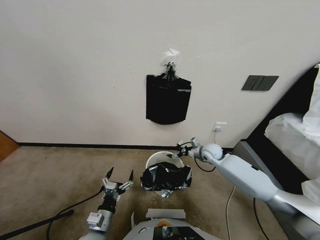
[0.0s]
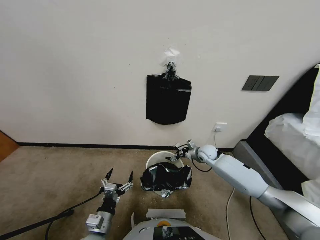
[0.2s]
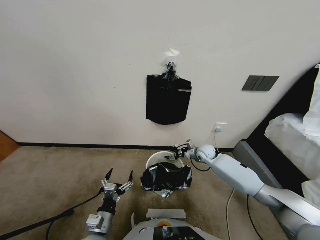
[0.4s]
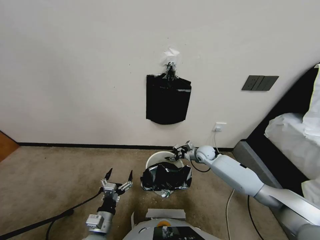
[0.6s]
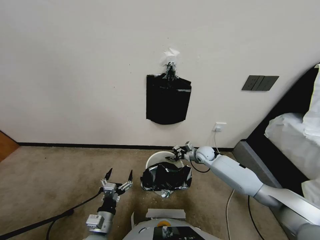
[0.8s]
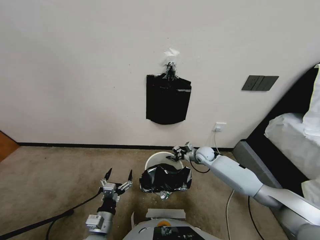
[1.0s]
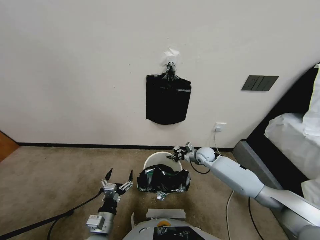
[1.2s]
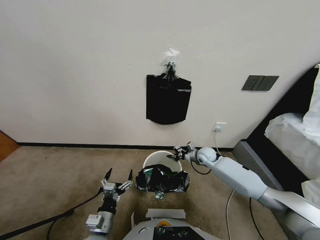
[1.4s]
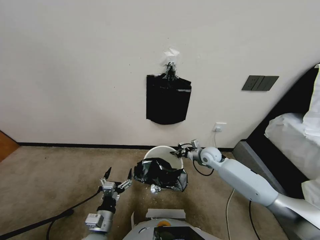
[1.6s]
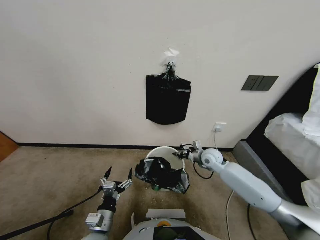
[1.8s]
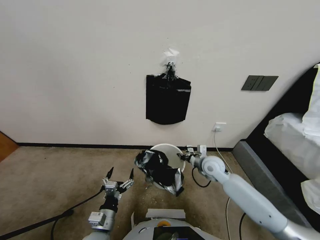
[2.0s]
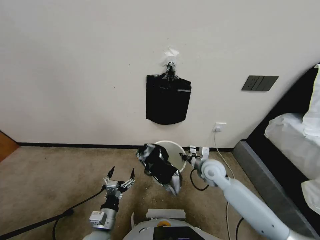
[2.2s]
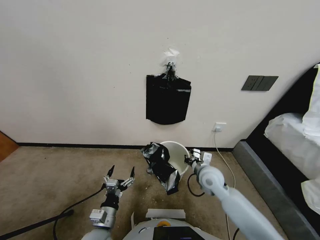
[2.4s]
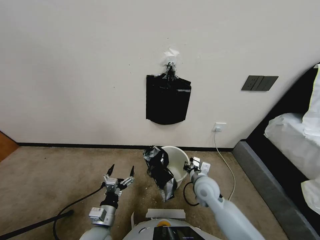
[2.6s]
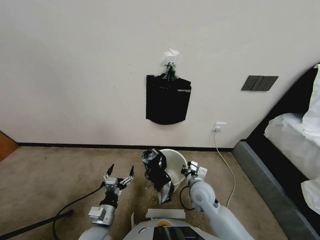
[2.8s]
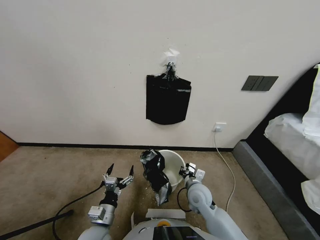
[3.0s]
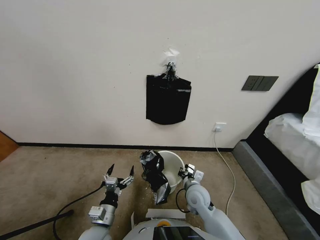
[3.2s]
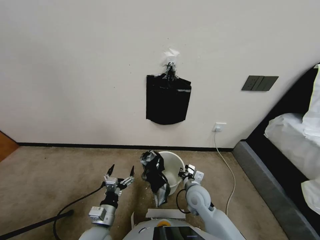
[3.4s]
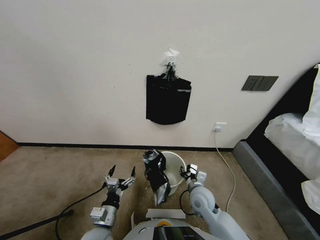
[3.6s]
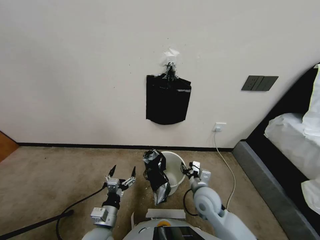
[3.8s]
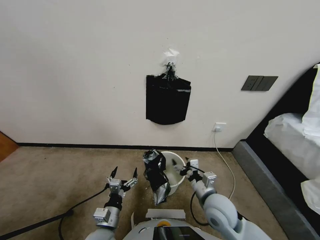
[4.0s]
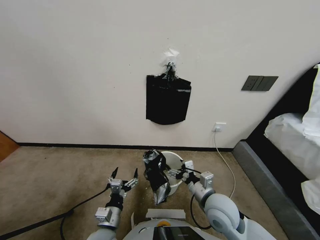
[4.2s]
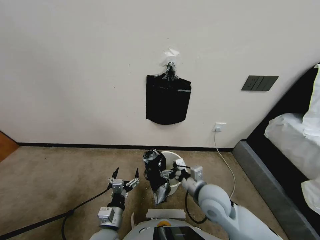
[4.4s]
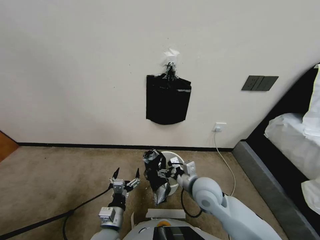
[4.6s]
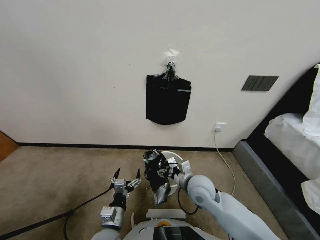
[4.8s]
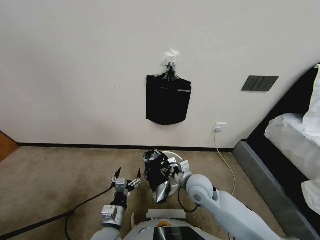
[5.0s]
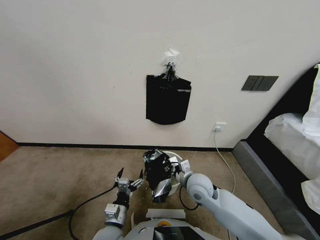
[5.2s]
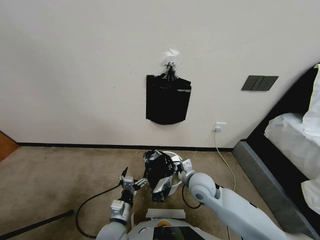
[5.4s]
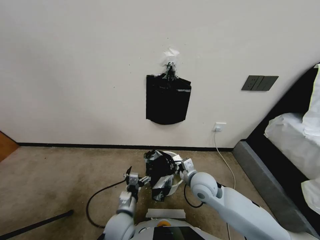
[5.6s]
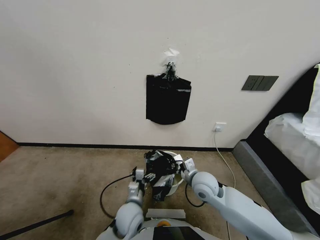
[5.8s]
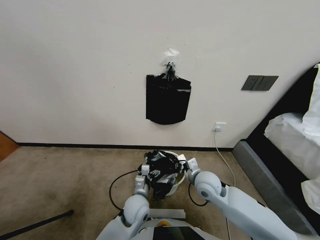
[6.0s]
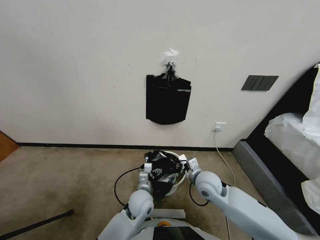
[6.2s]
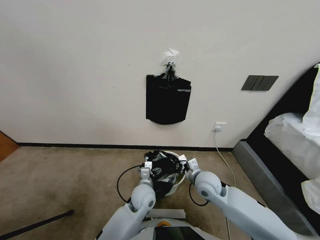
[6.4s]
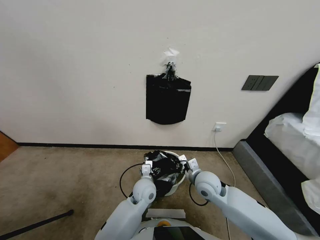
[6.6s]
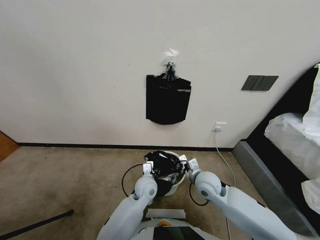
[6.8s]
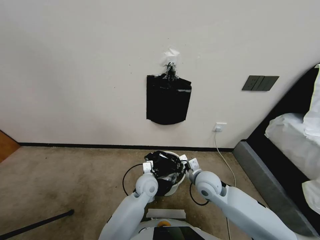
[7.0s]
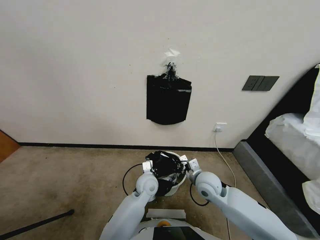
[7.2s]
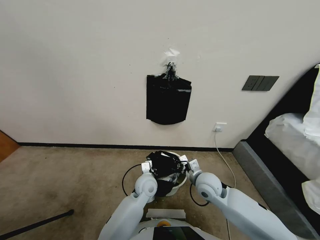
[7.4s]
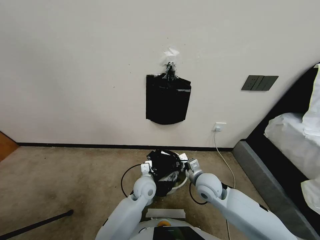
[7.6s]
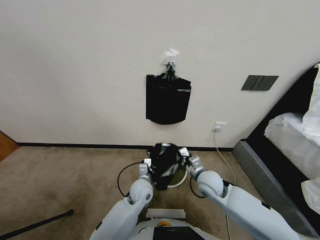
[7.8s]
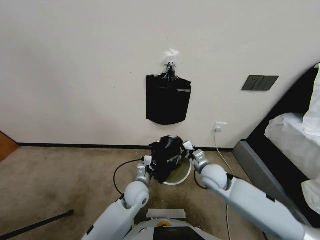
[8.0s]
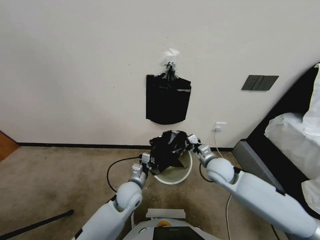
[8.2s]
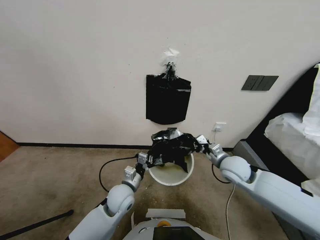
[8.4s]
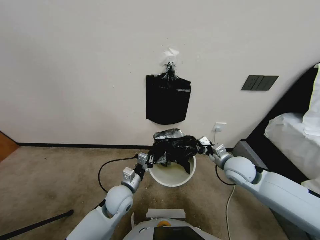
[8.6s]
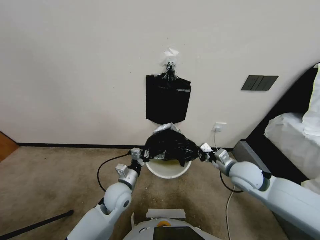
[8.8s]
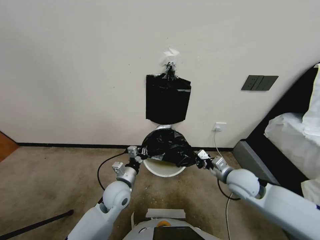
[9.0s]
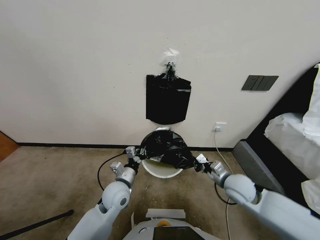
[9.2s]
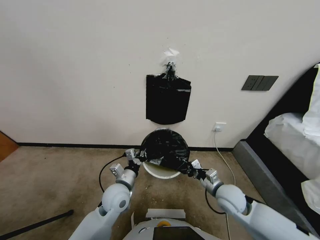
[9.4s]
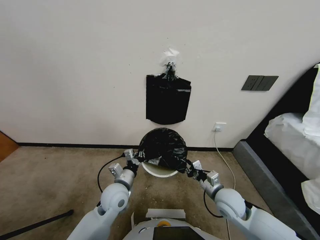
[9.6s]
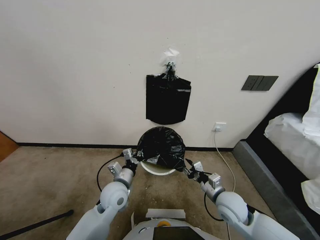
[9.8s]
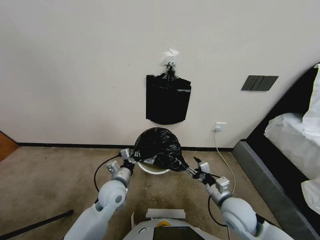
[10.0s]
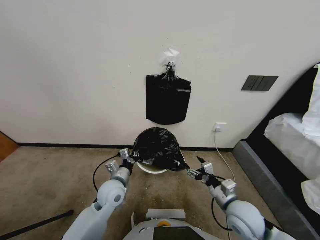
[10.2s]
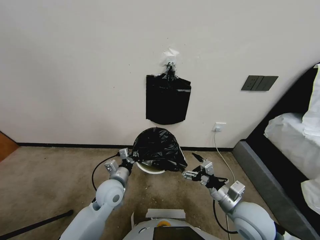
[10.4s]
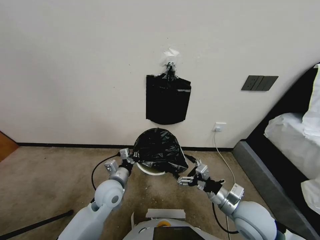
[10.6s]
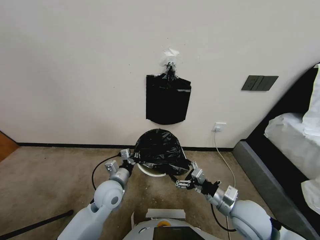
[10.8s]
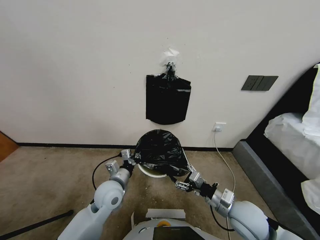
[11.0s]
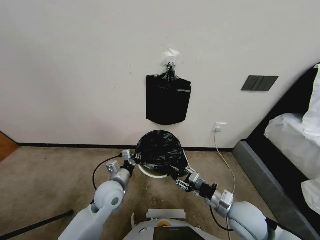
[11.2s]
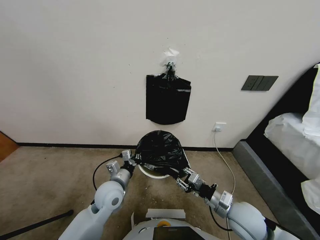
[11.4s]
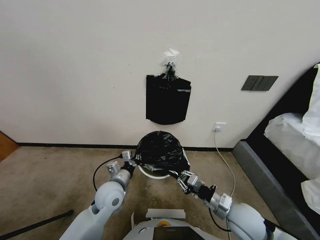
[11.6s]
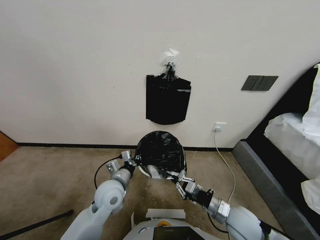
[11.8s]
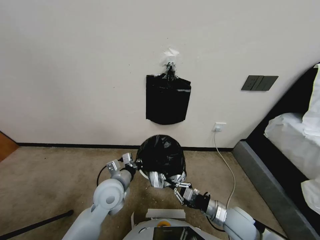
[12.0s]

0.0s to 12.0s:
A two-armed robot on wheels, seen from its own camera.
Task of the whole recording: Place a trash bag onto the trash bin.
0.0s to 1.6s: The right gripper closes.
1.6s to 3.0s: The right gripper travels backward and to the left by some 20 cm.
3.0s to 4.4s: The right gripper heads upward, covering some 10 cm, and opens.
4.4s to 6.0s: The right gripper changes place by roughly 5 cm, and closes. The left gripper heads forward and to the right, covering some 15 cm.
6.0s to 7.6s: The left gripper goes about 5 cm forward, and closes.
7.6s to 9.0s: The right gripper moves to the right, approximately 10 cm. The left gripper heads to the left, covering approximately 10 cm.
9.0s to 10.4s: The right gripper moves backward, roughly 10 cm, and opens up.
10.4s to 12.0s: The right gripper travels downward by about 10 cm, and closes up.

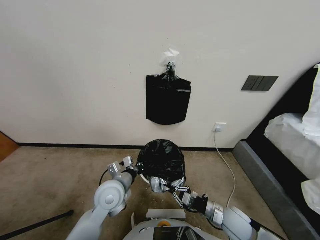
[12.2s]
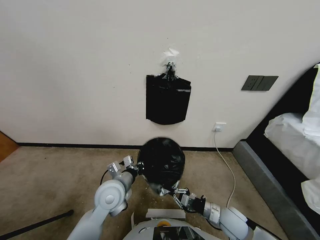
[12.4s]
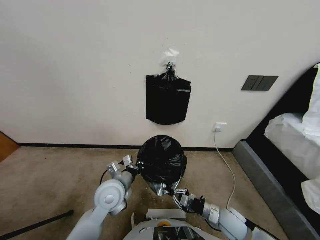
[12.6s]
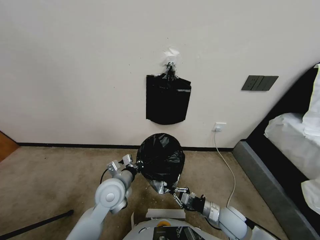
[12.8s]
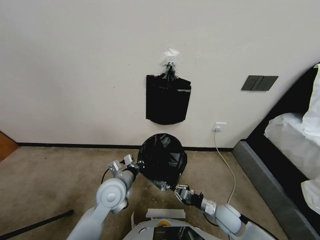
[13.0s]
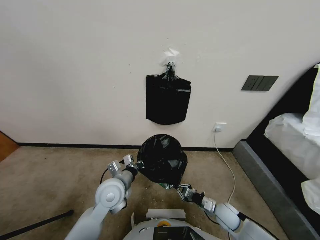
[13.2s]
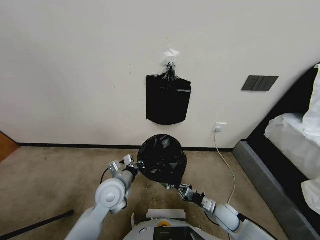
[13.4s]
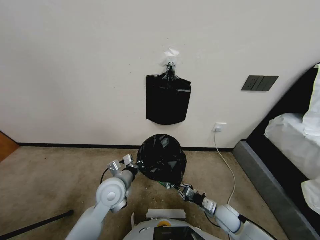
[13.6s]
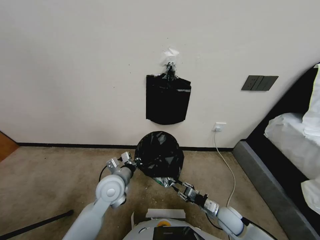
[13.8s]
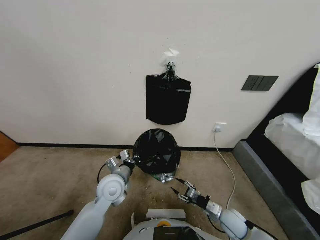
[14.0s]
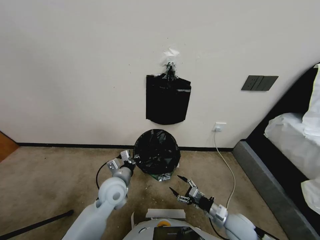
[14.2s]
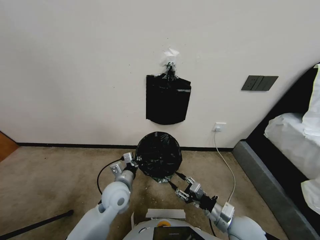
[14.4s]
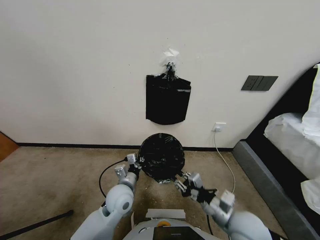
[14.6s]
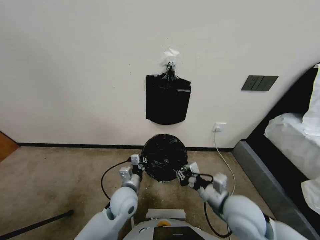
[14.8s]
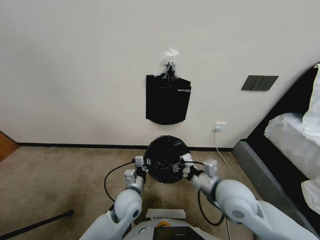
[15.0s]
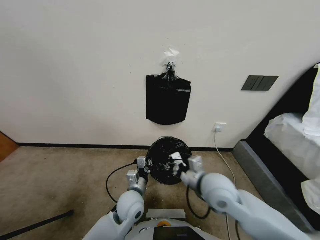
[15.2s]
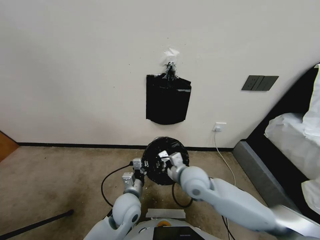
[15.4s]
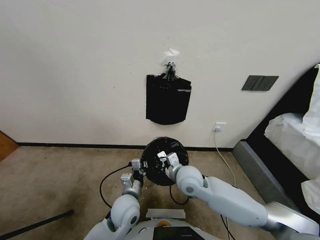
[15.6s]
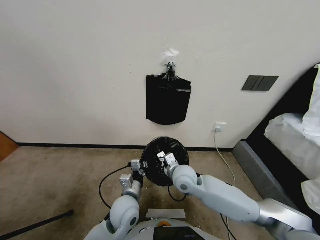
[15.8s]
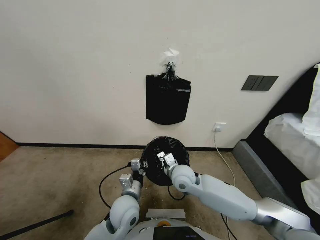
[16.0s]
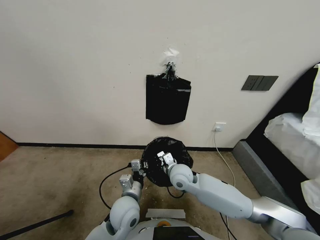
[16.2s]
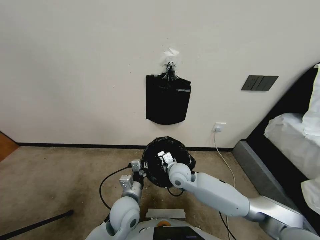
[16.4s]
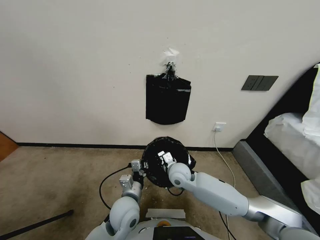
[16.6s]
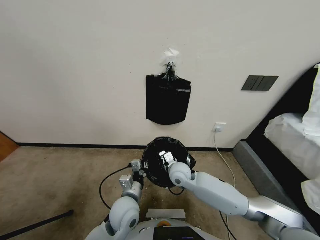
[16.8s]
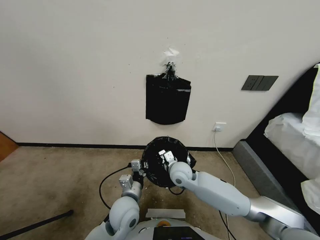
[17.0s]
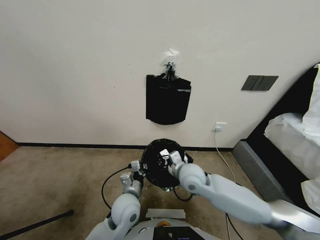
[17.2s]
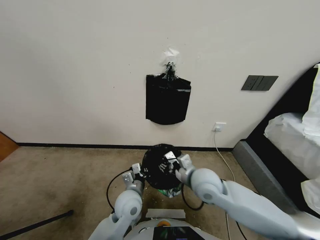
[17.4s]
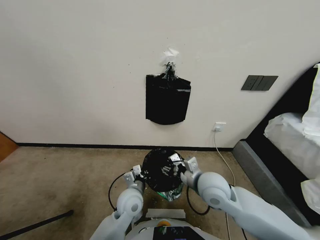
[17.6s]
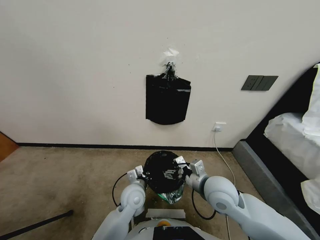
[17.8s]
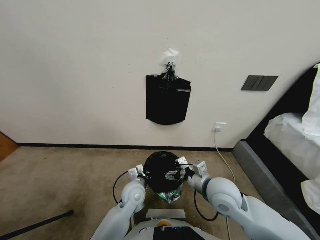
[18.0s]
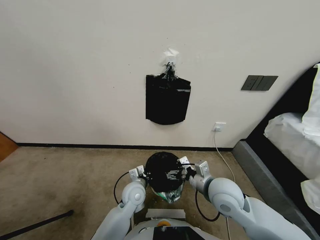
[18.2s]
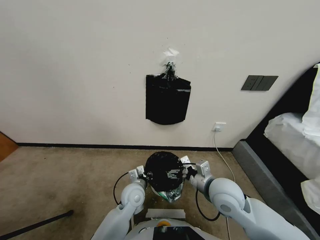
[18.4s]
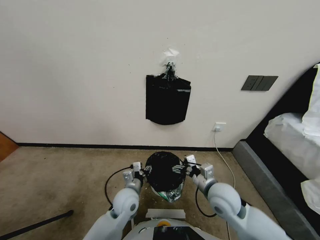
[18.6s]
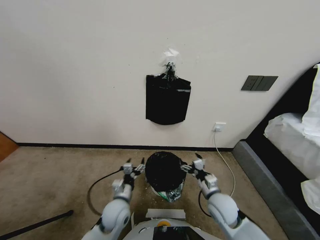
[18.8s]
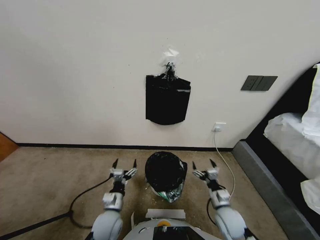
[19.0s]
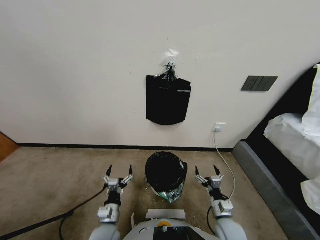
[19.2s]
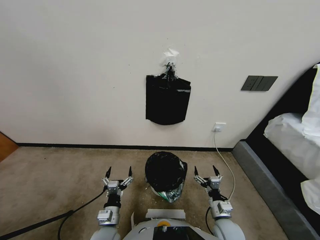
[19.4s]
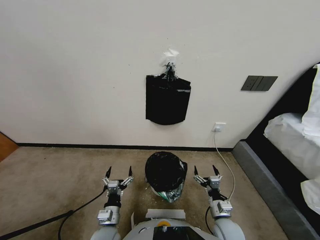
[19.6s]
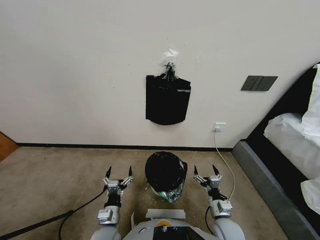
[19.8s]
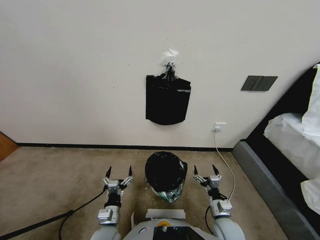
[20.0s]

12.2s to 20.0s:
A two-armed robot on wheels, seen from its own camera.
Task of the whole recording: Place a trash bag onto the trash bin.
12.2s to 13.8s: The right gripper travels downward by about 5 cm, and opens up.
13.8s to 15.4s: The right gripper goes about 30 cm upward, to the left and forward, and closes its fingers. Meanwhile the left gripper heads backward and to the right, covering about 10 cm.
15.4s to 16.8s: The right gripper heads downward, covering roughly 5 cm.
16.8s to 18.4s: The left gripper changes place by roughly 5 cm, and opens its fingers, while the right gripper is displaced to the right, backward and upward by some 15 cm, and opens up.
18.4s to 20.0s: The right gripper heads downward and backward, covering roughly 20 cm. Meanwhile the left gripper goes about 15 cm backward, to the left and downward, and opens up.
